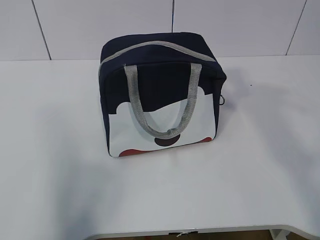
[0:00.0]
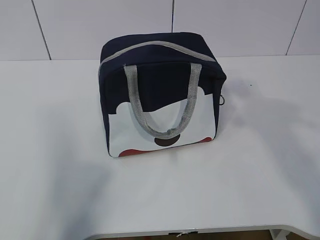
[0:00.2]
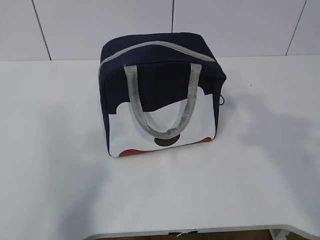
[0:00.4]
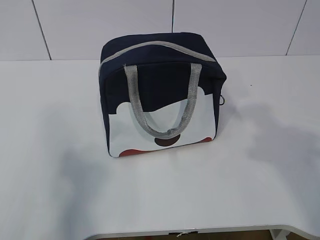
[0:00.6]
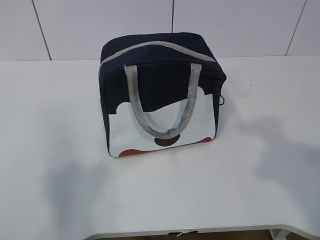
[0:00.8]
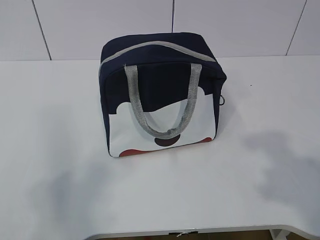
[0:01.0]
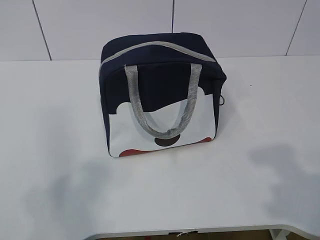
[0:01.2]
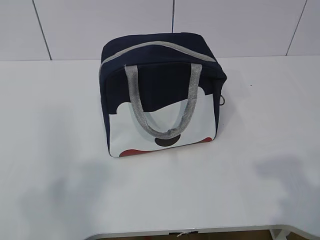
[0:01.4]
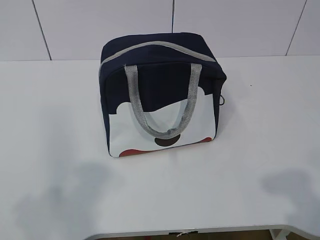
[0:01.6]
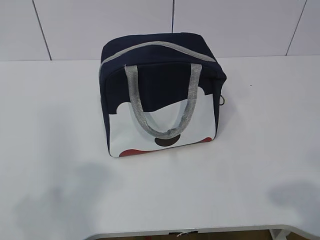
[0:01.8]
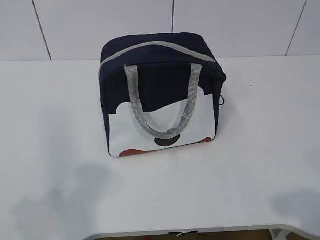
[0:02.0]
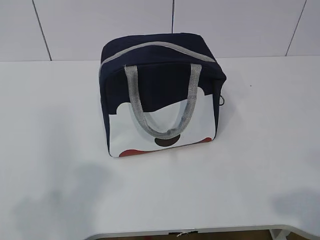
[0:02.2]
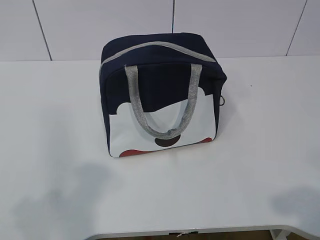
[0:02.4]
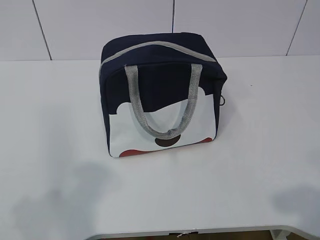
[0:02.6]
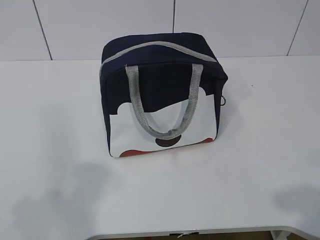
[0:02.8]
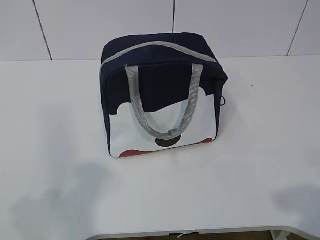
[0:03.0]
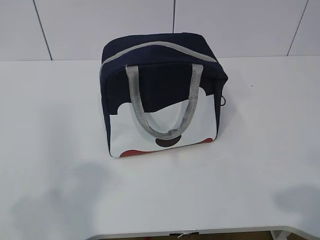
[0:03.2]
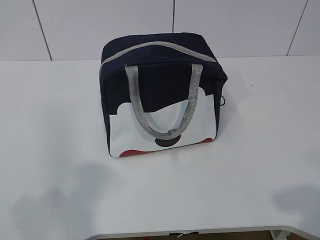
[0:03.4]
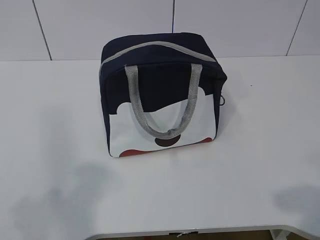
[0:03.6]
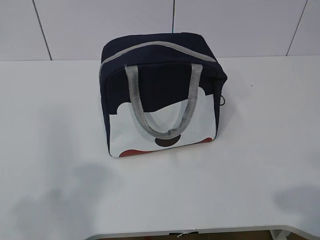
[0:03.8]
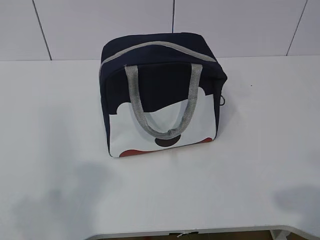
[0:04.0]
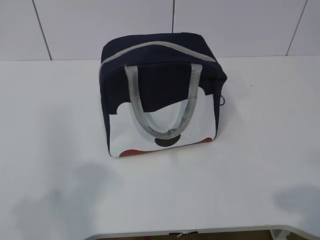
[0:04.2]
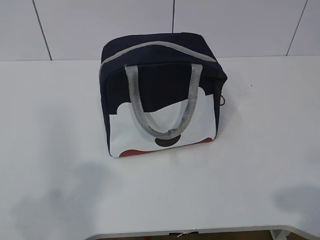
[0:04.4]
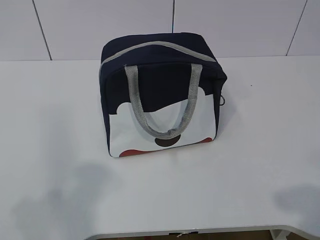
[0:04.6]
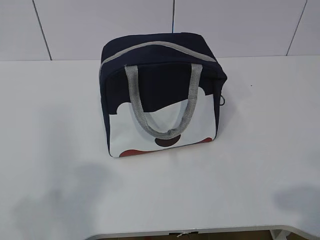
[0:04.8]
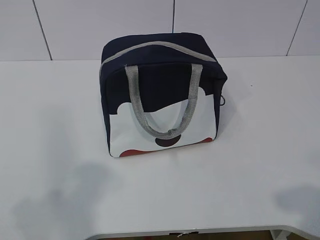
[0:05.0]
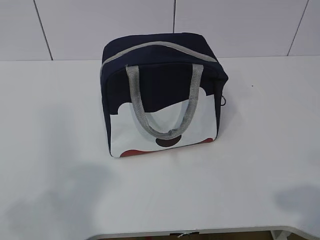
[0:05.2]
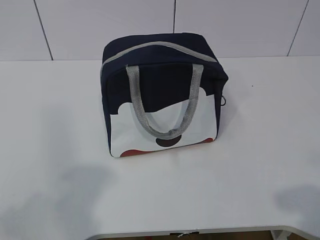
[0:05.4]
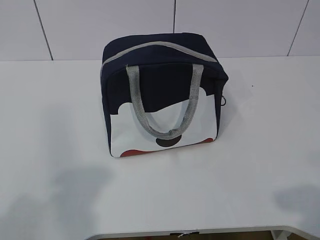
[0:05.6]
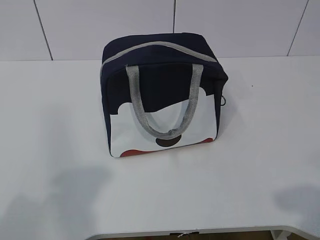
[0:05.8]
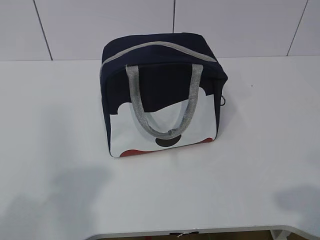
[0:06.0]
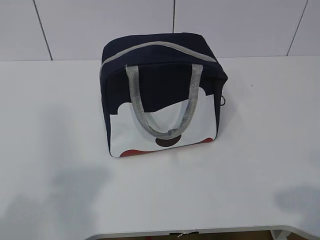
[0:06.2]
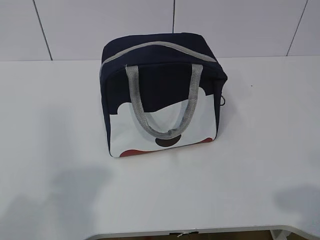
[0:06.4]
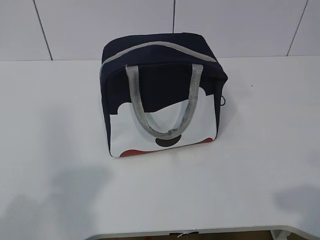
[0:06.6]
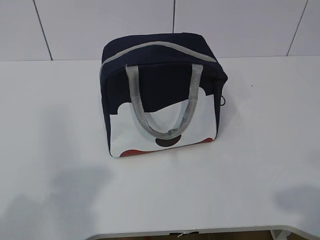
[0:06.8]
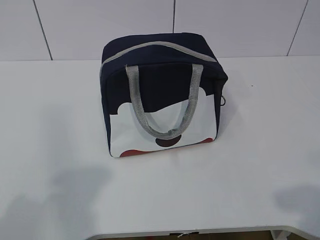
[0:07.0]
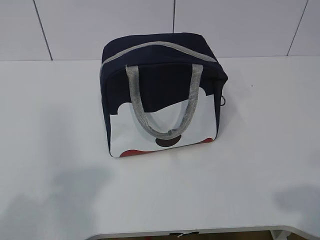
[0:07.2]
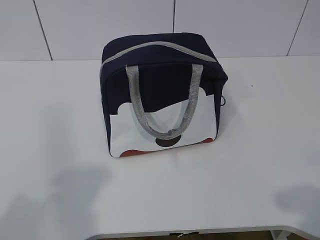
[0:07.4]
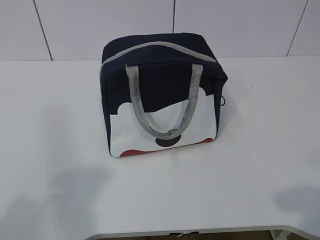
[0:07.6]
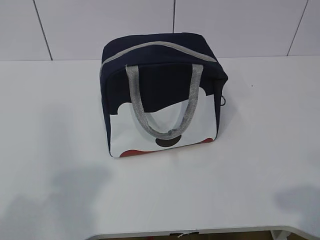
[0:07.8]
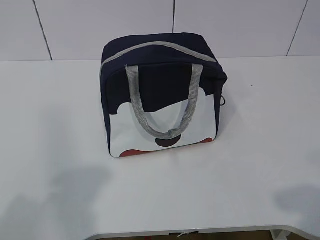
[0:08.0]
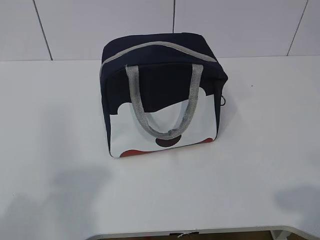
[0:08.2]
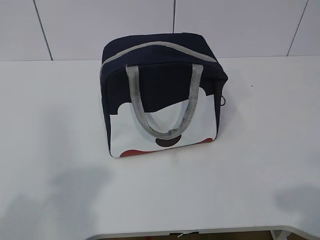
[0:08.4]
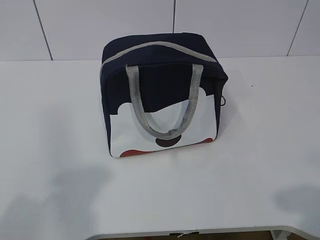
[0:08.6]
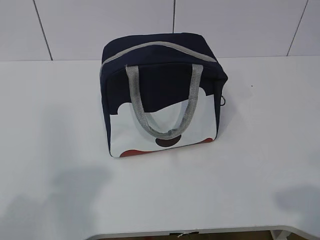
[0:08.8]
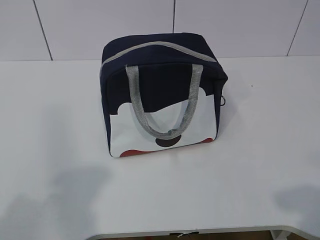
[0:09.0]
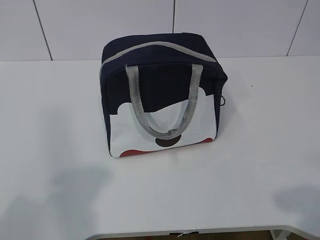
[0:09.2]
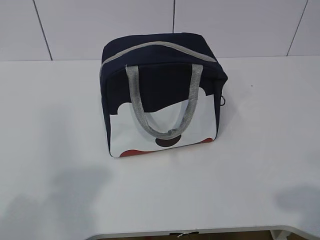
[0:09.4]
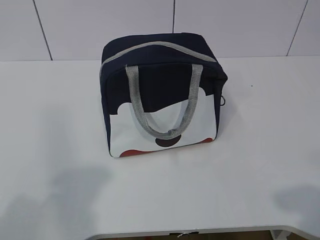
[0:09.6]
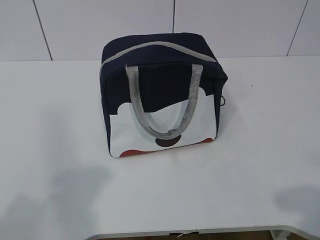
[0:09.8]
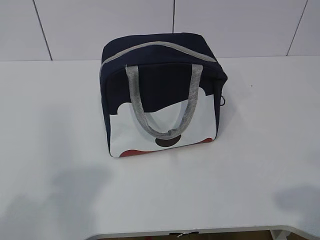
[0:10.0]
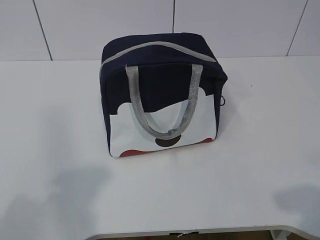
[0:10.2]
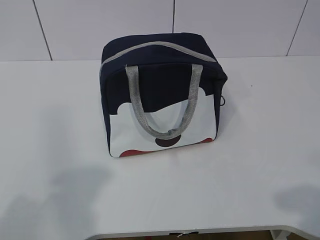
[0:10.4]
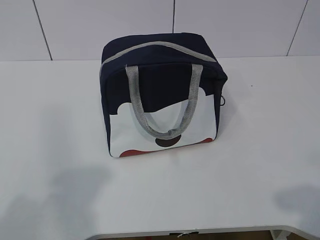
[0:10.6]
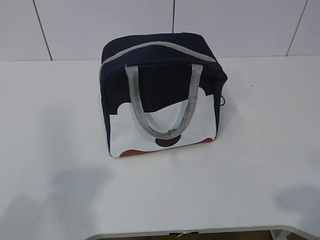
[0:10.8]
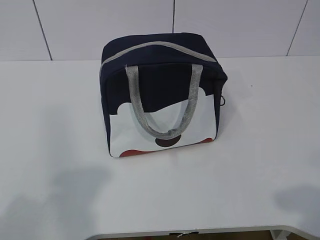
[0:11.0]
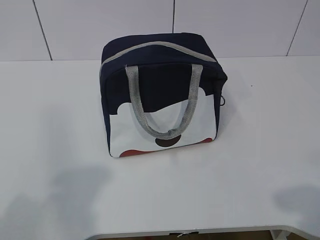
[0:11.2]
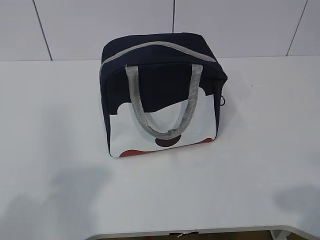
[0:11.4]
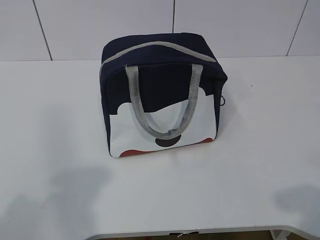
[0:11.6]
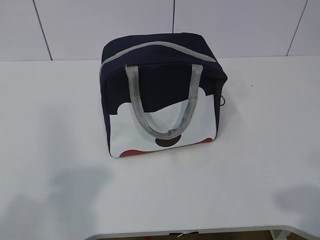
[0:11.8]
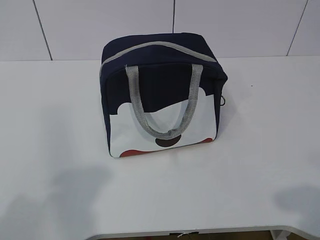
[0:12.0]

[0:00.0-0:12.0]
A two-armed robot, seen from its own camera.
0:00.0 to 0:01.6: Both grippers travel together downward and backward, about 20 cm.
0:01.6 to 0:03.0: There are only small adjustments of the grippers.
0:03.0 to 0:04.4: Both grippers stay about where they are.
0:06.0 to 0:12.0: Both grippers stay about where they are.

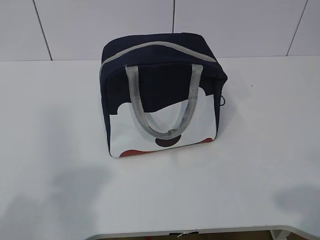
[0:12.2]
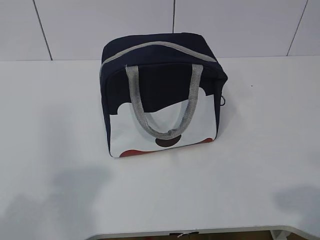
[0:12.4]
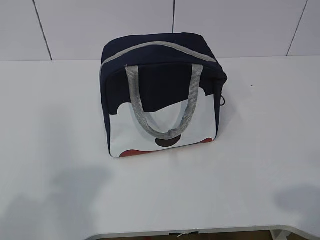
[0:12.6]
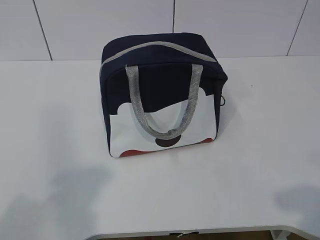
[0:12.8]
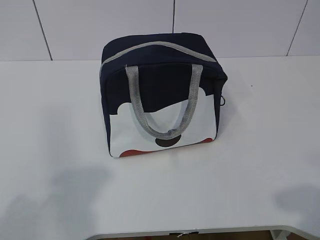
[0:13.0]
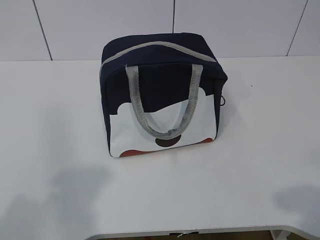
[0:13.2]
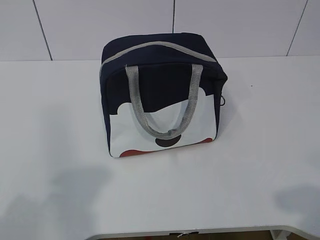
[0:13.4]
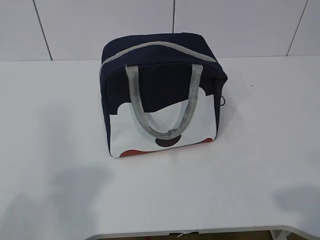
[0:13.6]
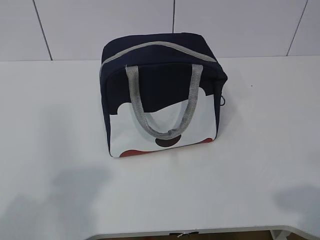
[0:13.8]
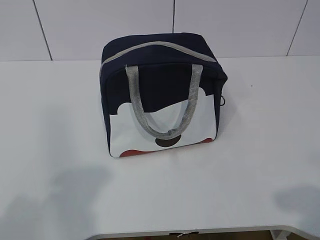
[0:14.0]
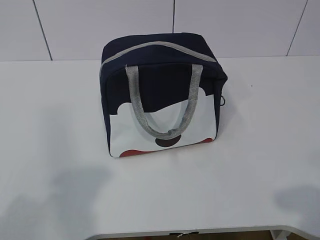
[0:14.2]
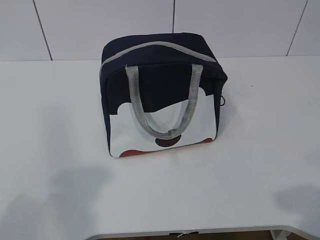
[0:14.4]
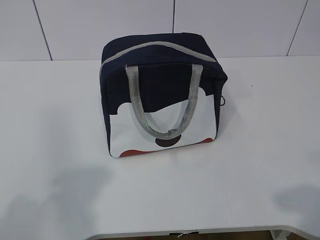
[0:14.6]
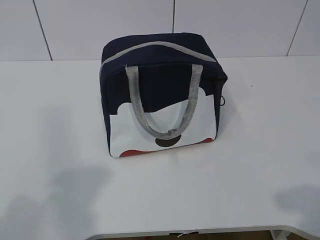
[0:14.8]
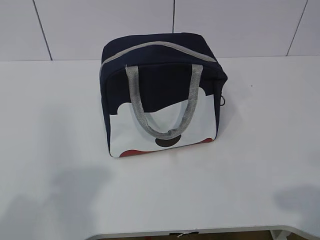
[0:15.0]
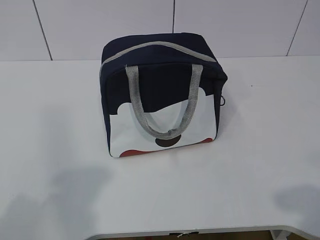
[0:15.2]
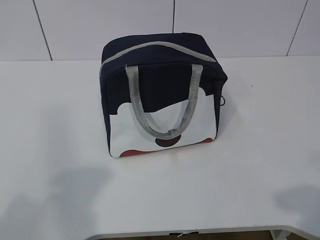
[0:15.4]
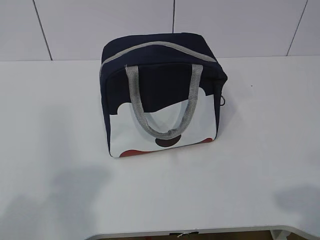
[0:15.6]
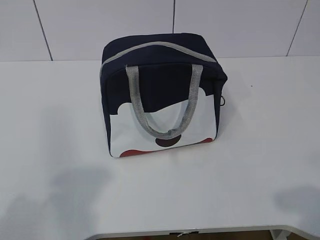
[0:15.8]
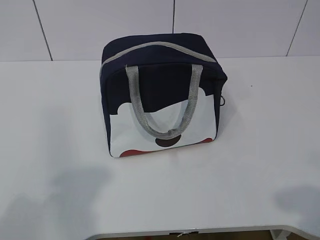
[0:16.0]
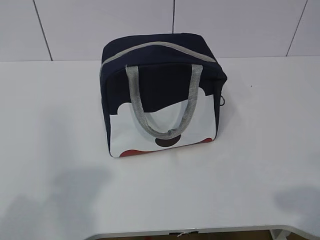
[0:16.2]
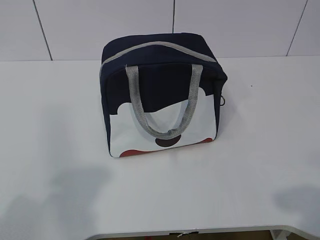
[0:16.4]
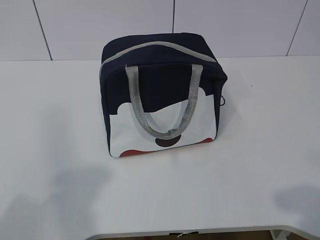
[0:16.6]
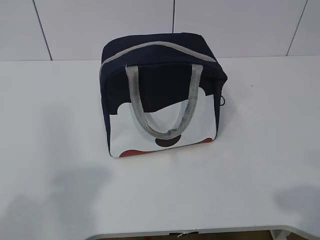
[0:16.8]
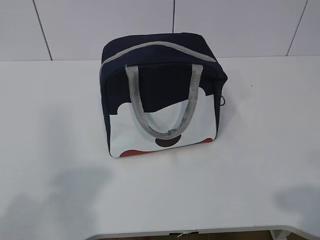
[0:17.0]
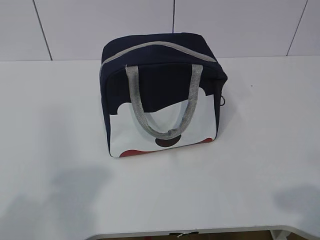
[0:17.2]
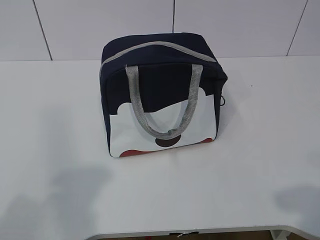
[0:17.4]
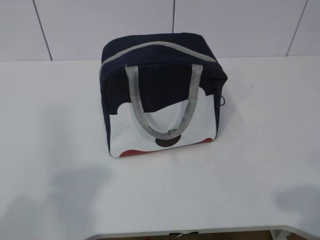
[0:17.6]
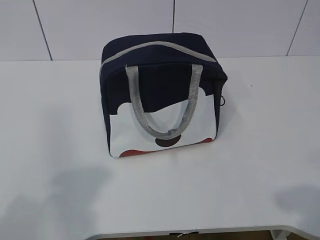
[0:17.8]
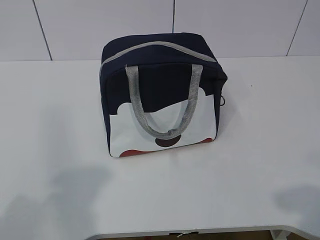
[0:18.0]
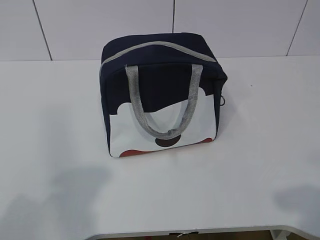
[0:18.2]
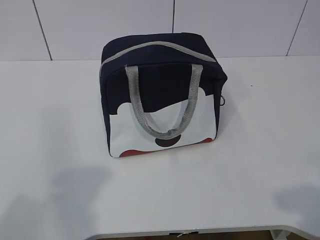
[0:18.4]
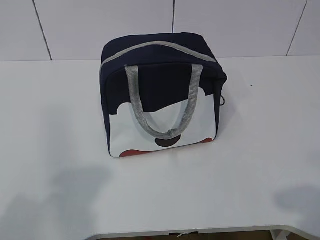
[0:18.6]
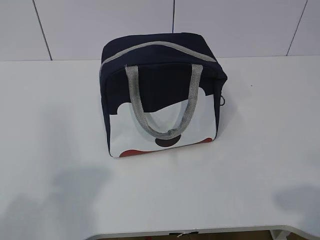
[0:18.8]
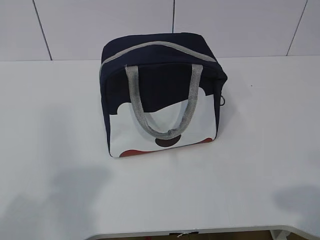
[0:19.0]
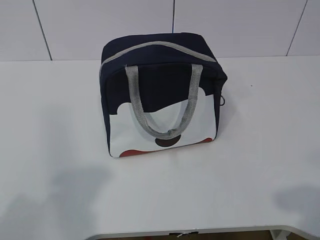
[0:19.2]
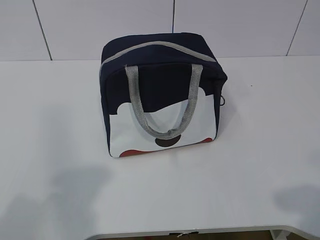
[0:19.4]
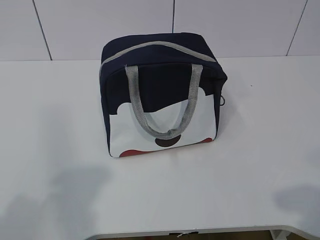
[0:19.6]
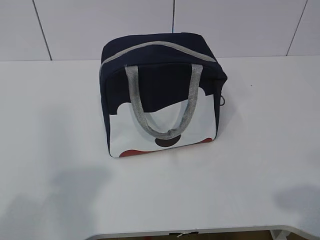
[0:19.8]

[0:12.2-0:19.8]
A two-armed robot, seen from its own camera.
0:12.2 to 0:19.8: Both grippers stay about where they are.
